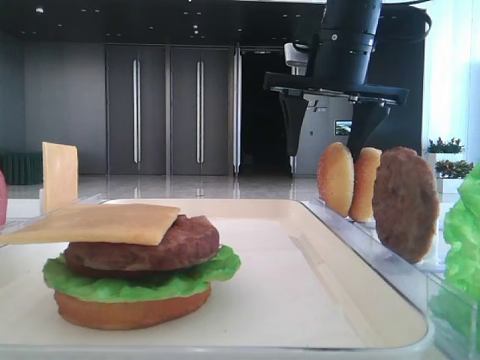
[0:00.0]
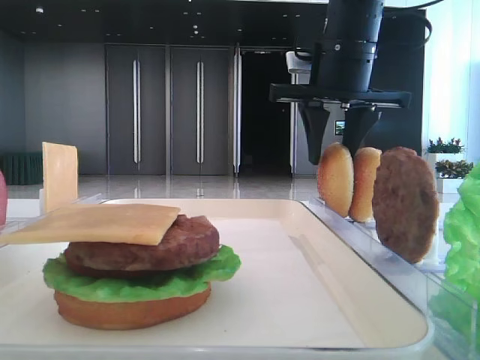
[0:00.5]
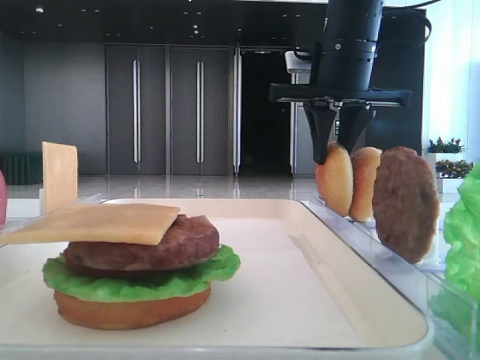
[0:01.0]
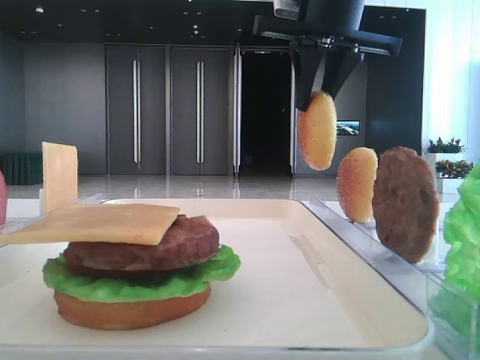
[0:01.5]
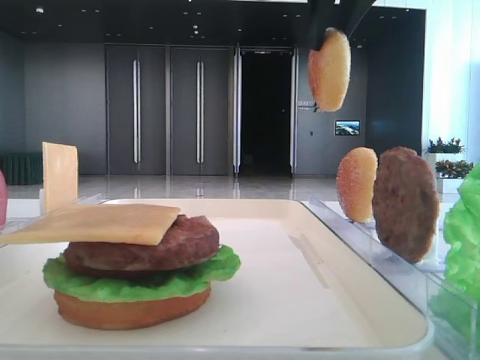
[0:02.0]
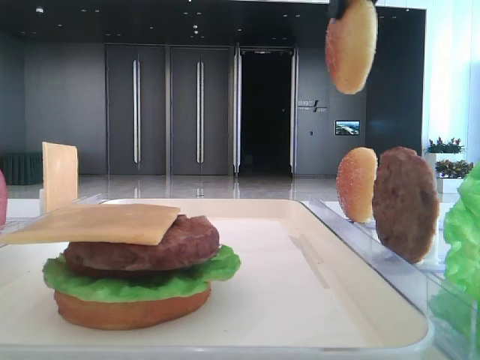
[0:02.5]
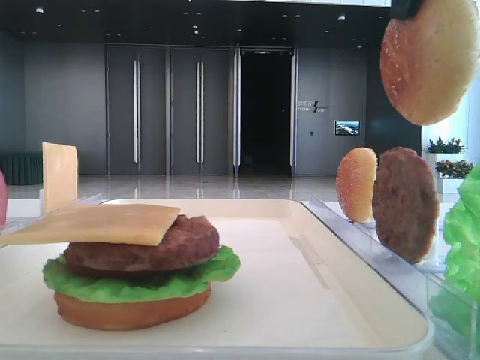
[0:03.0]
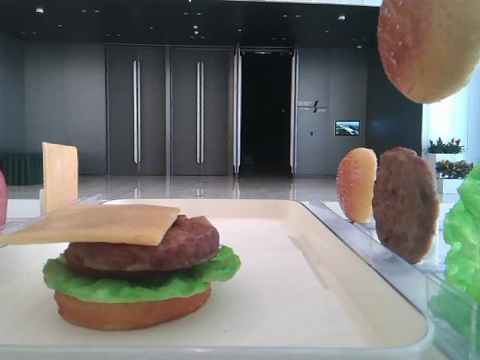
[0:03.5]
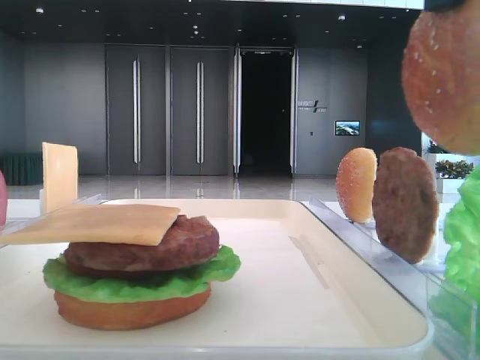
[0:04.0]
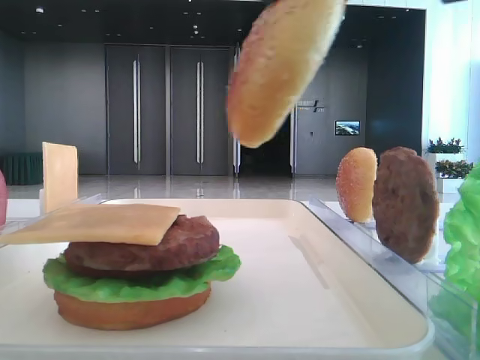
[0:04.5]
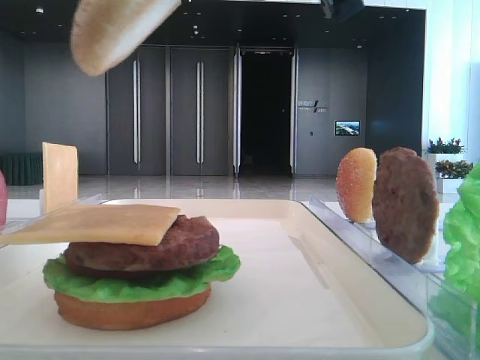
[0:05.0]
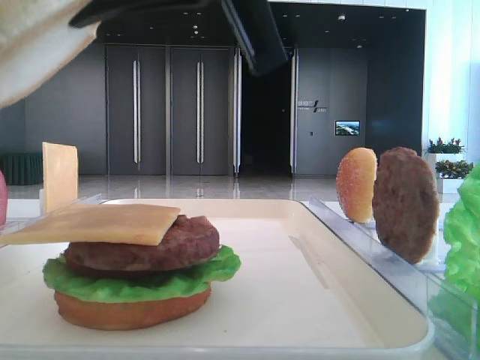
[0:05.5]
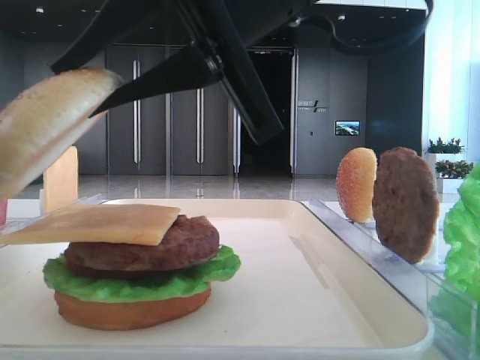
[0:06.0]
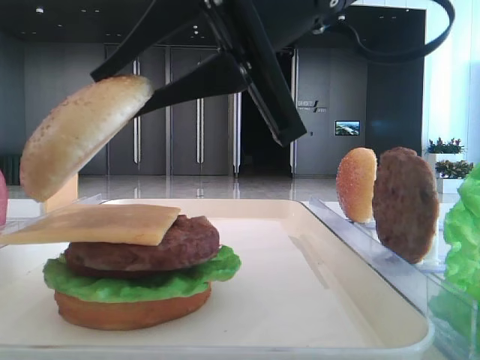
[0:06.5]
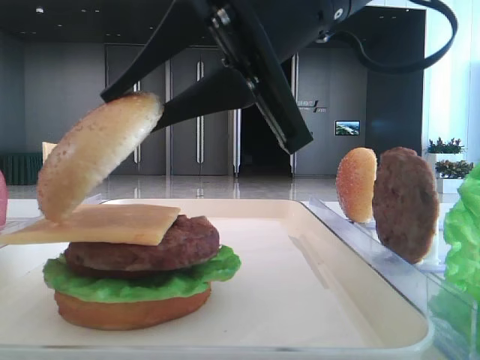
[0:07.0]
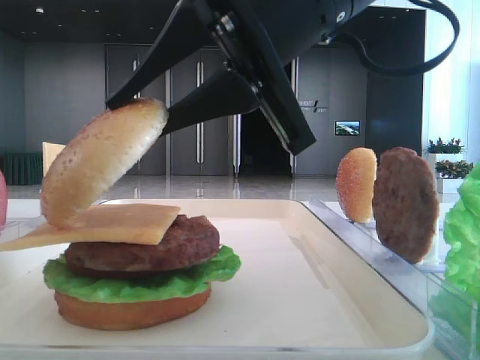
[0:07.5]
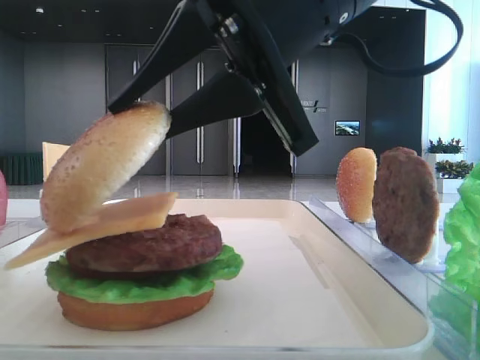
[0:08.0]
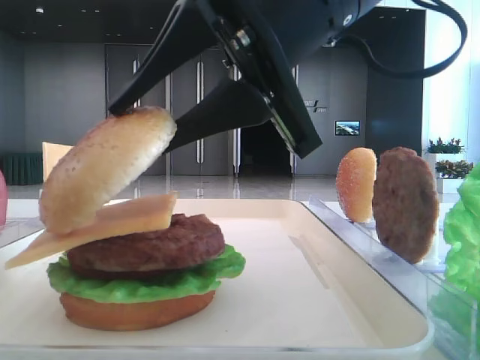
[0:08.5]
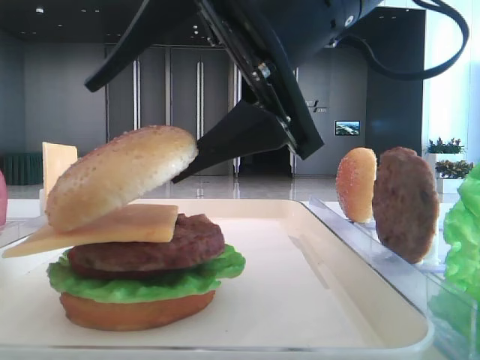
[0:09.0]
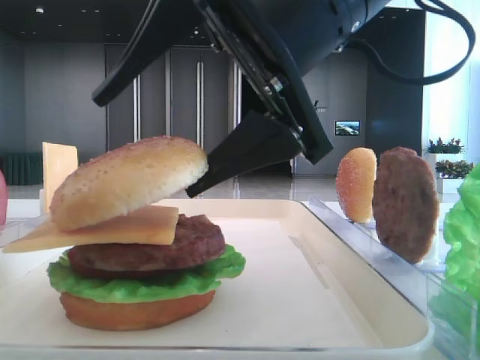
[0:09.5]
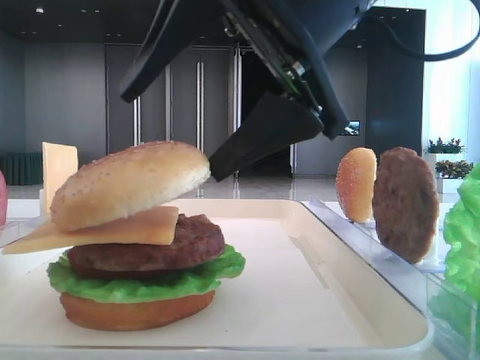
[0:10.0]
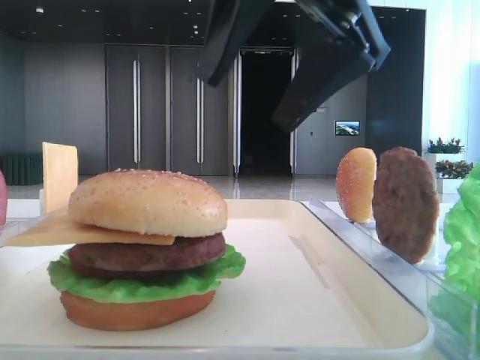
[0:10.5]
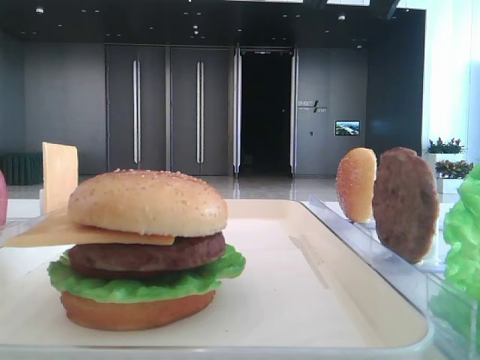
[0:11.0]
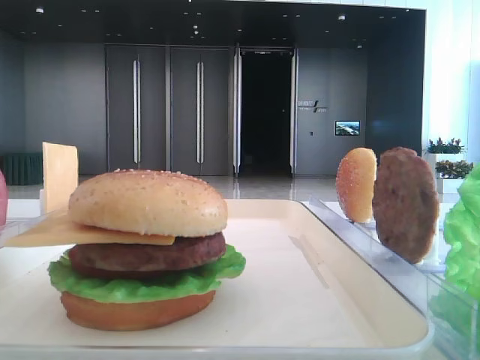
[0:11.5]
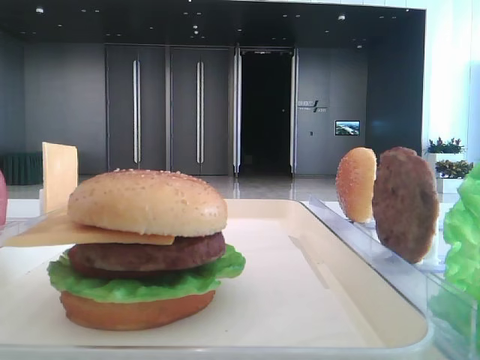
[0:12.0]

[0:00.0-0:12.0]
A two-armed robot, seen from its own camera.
Step, 0:01.0 to 0:10.0: Place the top bread slice on the cheese with the right hand.
0:00.0 to 0:02.0: The right gripper moves upward, approximately 10 cm, and closes.
0:02.0 to 0:04.0: The right gripper shifts approximately 20 cm backward.
0:04.0 to 0:06.0: The right gripper travels to the left and downward by about 15 cm.
0:06.0 to 0:08.0: There are only small adjustments of the grippers.
0:08.0 to 0:10.0: The right gripper opens up.
0:10.0 to 0:12.0: The right gripper heads to the right and upward, covering approximately 30 cm.

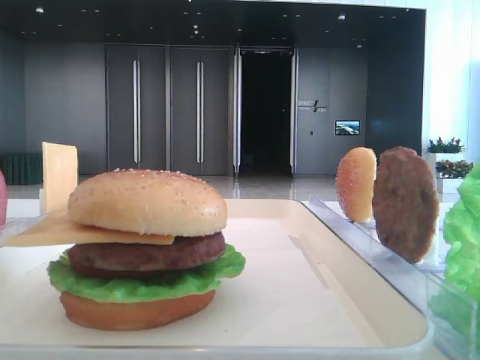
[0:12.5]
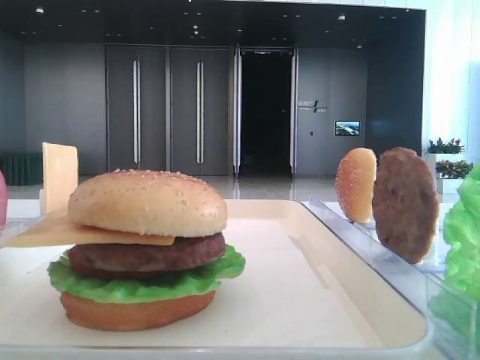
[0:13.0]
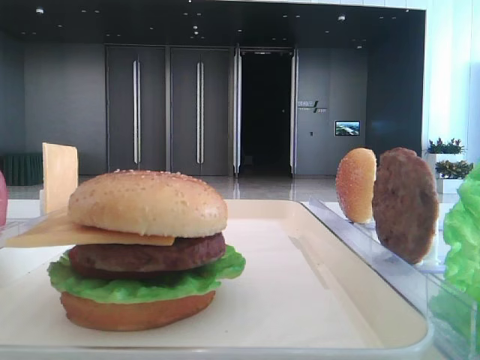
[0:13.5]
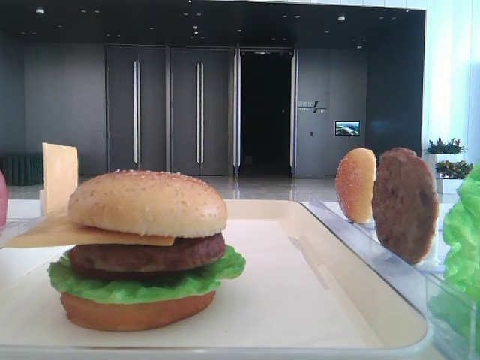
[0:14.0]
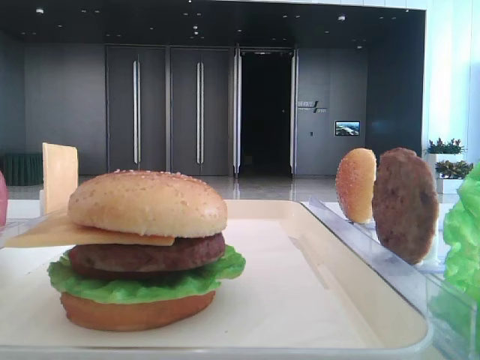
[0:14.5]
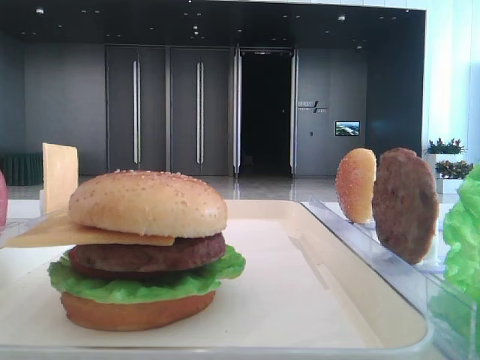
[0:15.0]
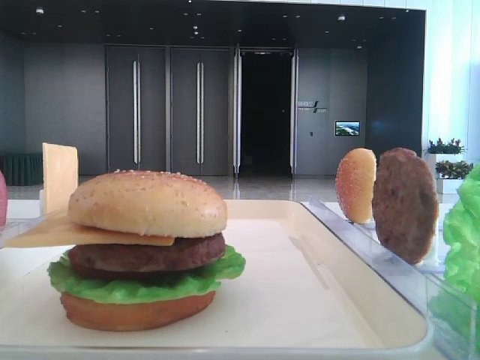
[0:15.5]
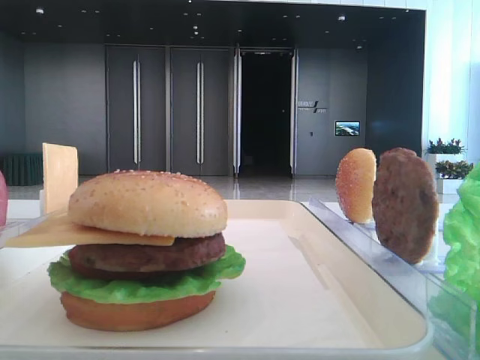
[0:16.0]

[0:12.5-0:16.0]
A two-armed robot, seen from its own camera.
0:12.5 to 0:14.5: The right gripper goes some 35 cm backward.

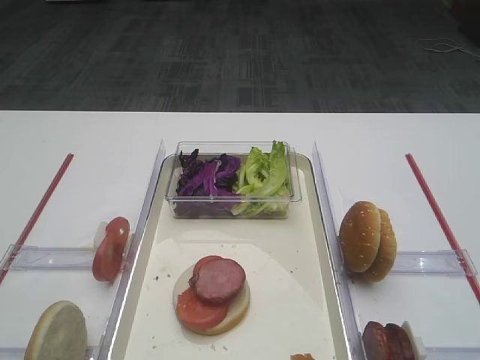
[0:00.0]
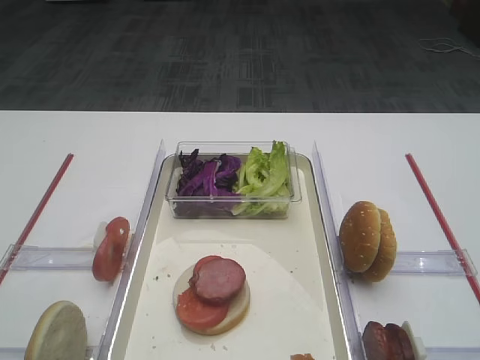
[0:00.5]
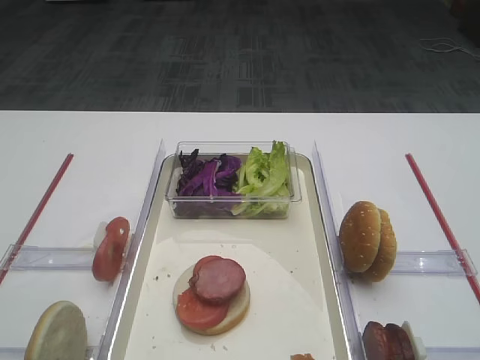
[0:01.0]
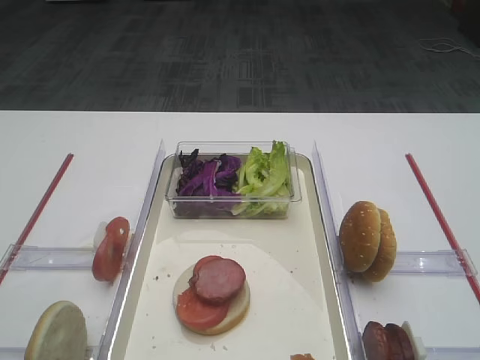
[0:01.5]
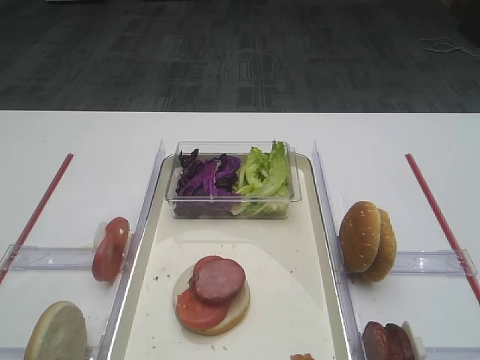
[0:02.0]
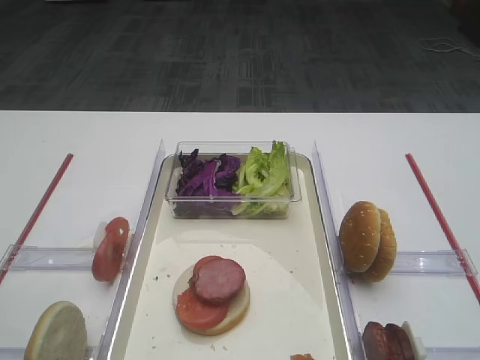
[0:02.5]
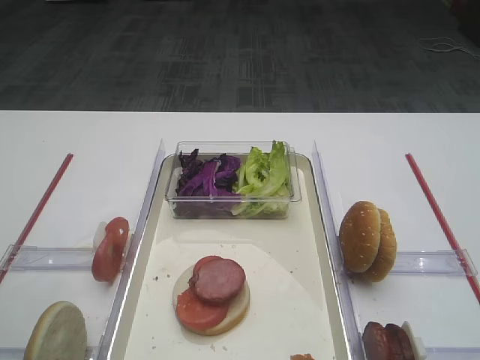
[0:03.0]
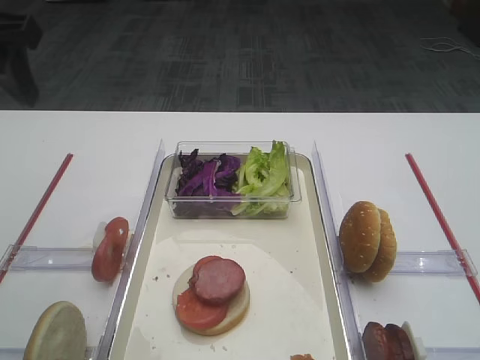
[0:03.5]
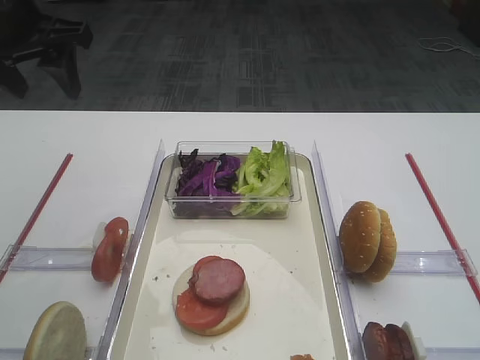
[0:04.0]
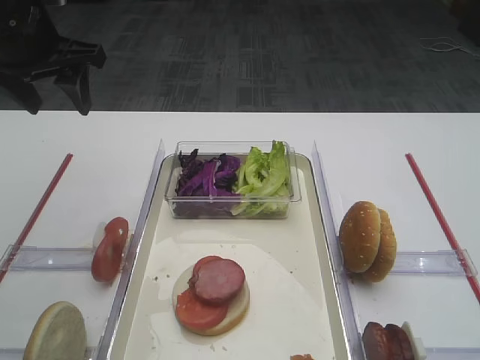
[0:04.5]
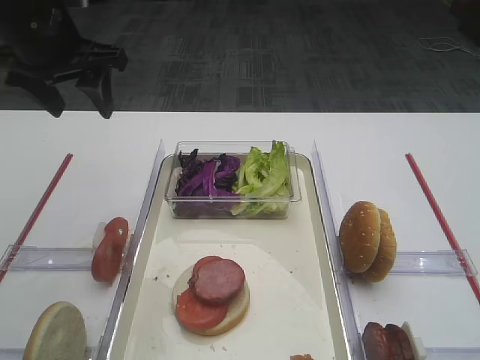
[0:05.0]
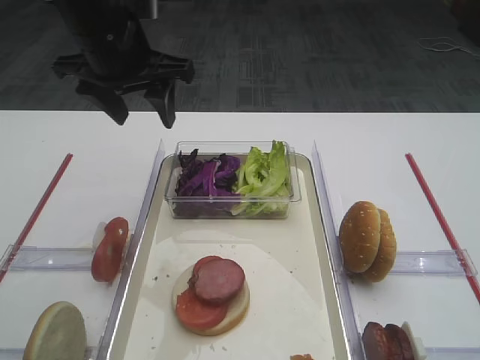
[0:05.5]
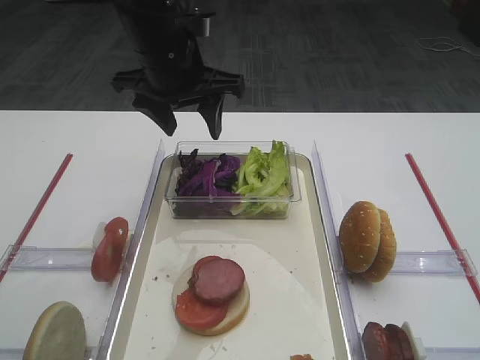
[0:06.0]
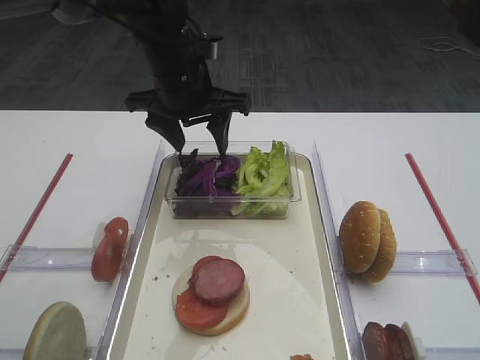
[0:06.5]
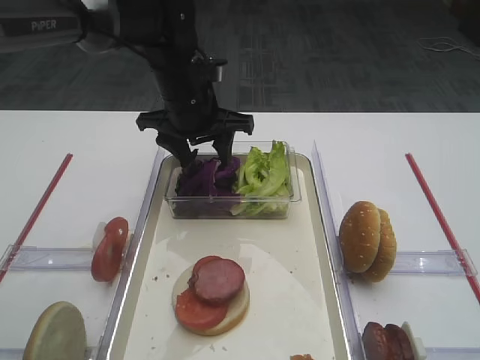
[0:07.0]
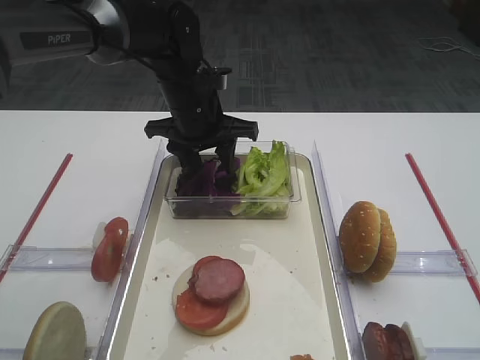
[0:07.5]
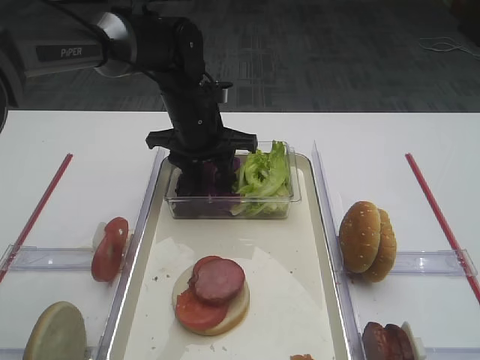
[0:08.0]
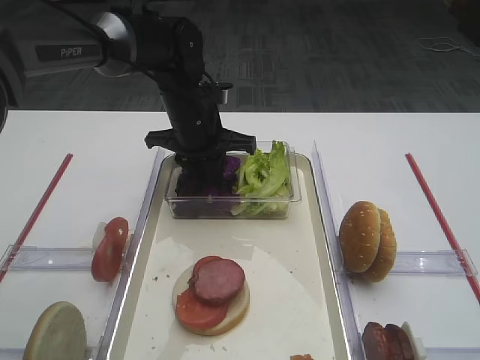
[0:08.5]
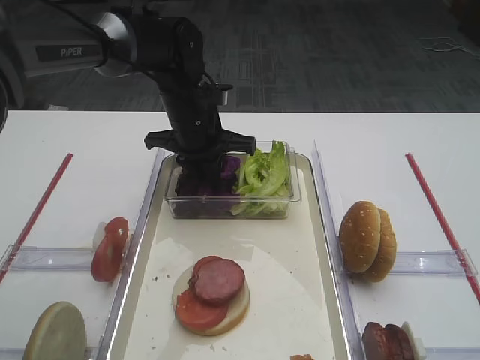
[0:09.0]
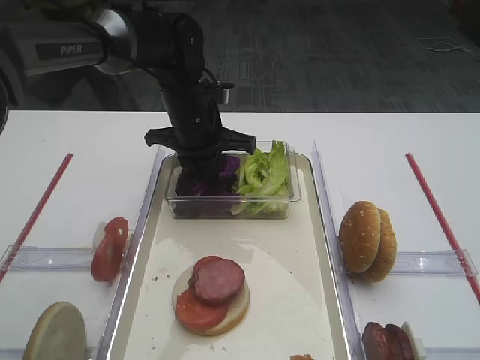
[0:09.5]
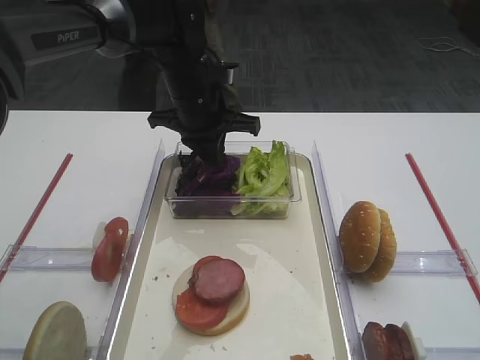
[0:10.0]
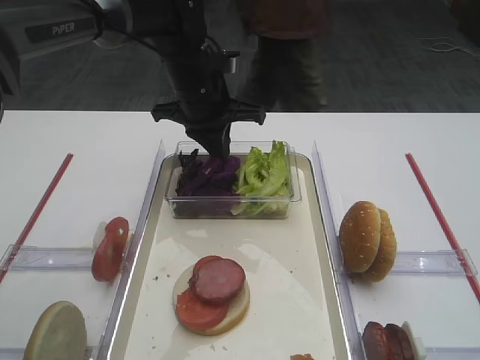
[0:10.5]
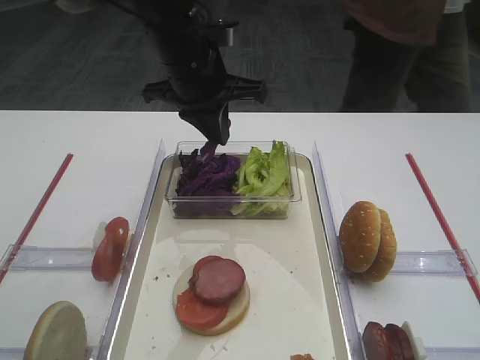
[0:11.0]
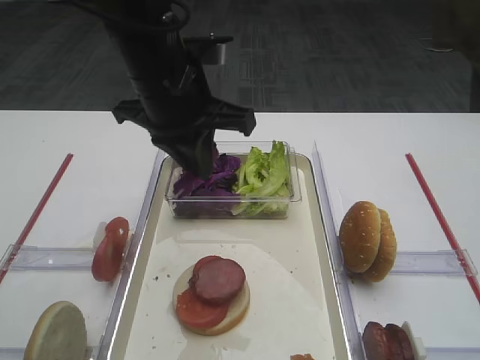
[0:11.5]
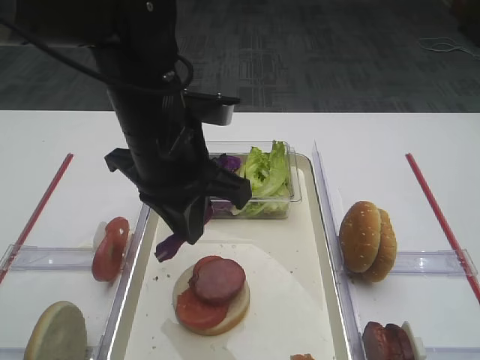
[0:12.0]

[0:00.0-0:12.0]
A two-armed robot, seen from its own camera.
Step, 0:00.0 to 0:10.5: Pick up the purple cabbage with the left gripper.
0:02.0 to 0:04.0: The left gripper travels forward by about 35 cm.
0:04.0 to 0:06.0: The left gripper travels to the right by some 15 cm.
0:06.0 to 0:08.0: The left gripper shifts some 10 cm downward.
0:08.0 to 0:10.0: The left gripper closes up.
0:10.0 to 0:12.0: The left gripper moves backward, approximately 15 cm.
